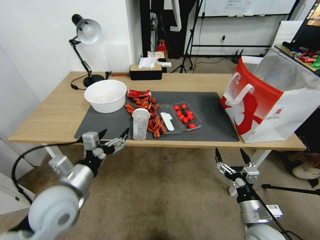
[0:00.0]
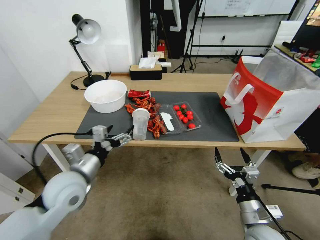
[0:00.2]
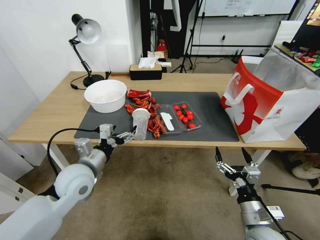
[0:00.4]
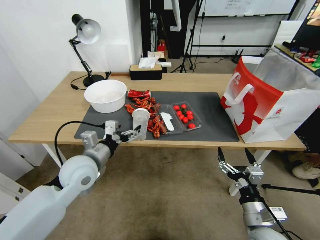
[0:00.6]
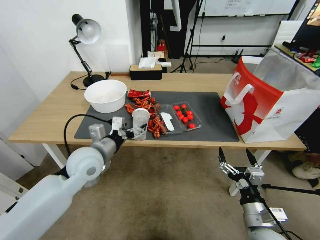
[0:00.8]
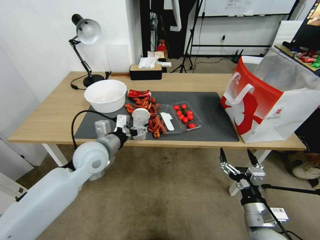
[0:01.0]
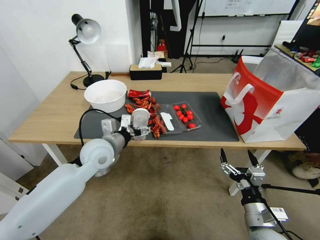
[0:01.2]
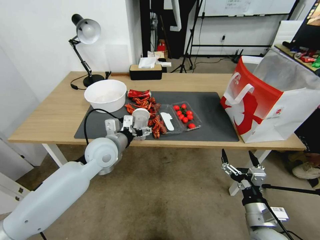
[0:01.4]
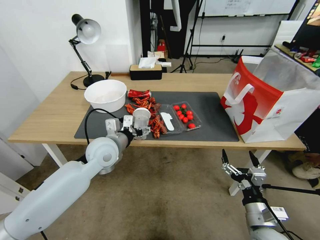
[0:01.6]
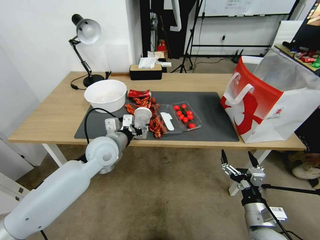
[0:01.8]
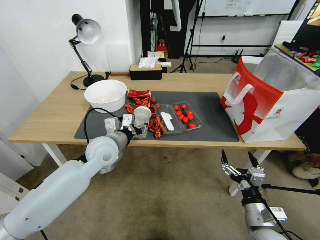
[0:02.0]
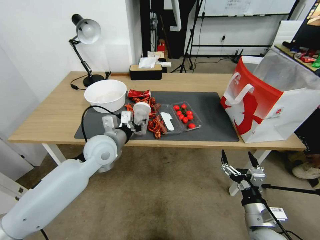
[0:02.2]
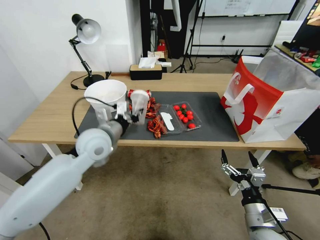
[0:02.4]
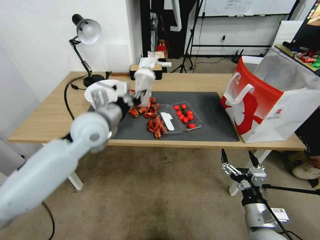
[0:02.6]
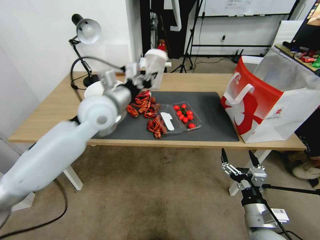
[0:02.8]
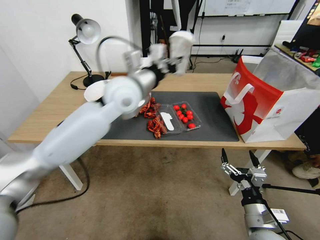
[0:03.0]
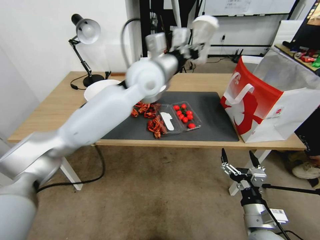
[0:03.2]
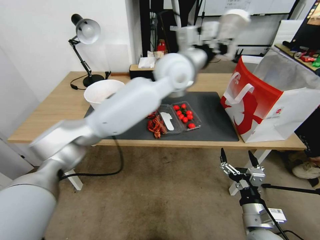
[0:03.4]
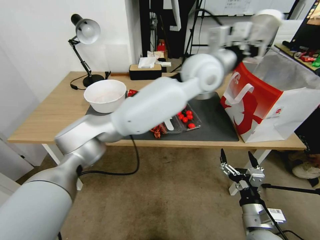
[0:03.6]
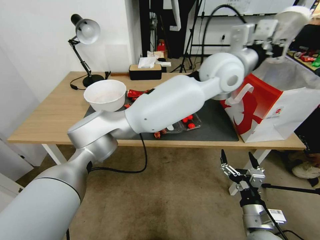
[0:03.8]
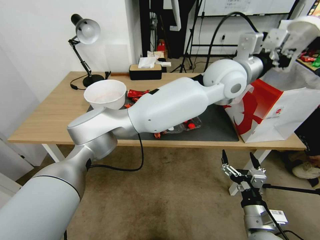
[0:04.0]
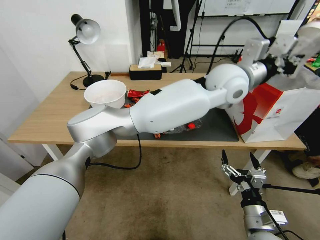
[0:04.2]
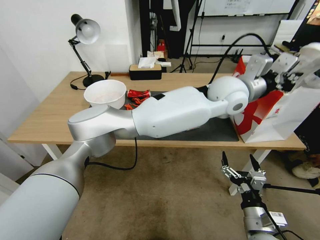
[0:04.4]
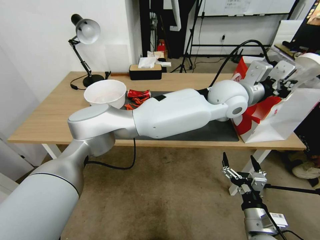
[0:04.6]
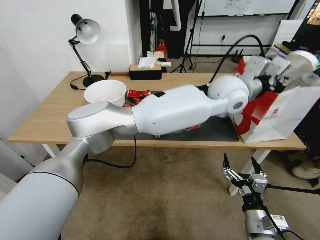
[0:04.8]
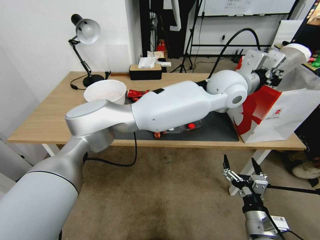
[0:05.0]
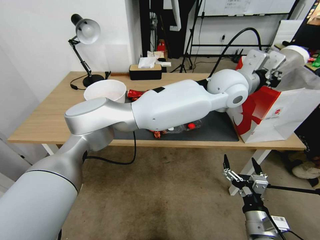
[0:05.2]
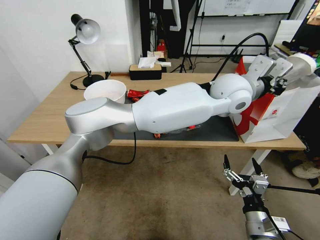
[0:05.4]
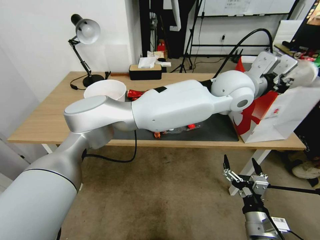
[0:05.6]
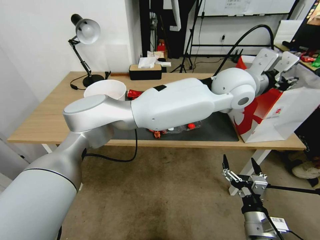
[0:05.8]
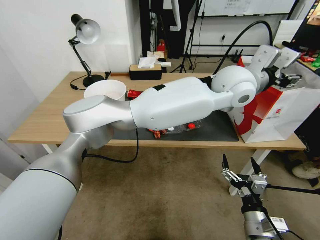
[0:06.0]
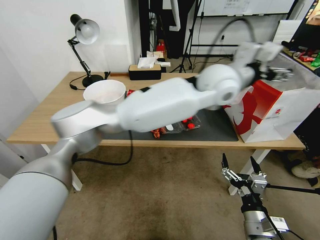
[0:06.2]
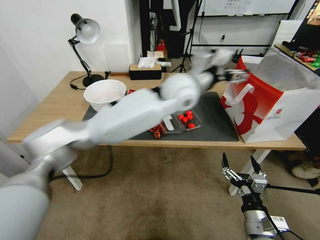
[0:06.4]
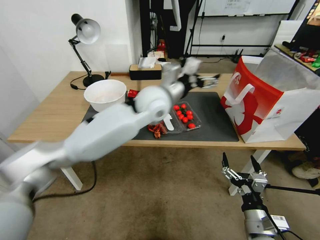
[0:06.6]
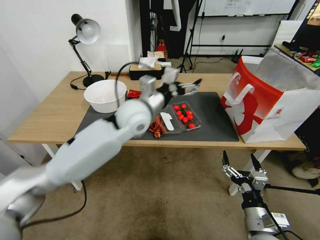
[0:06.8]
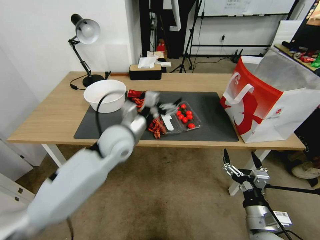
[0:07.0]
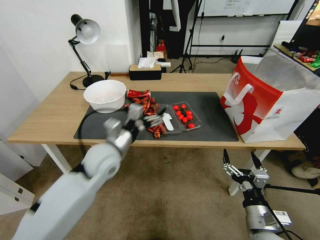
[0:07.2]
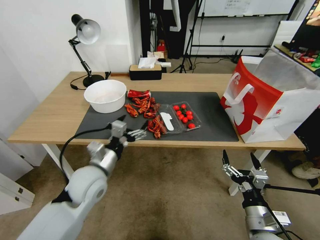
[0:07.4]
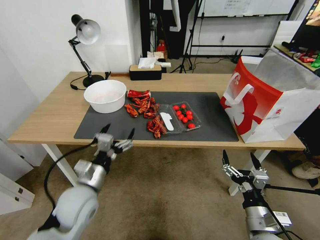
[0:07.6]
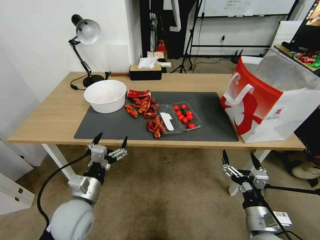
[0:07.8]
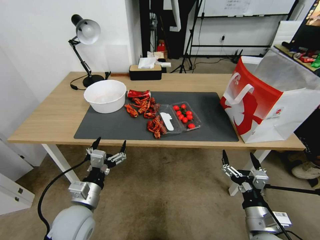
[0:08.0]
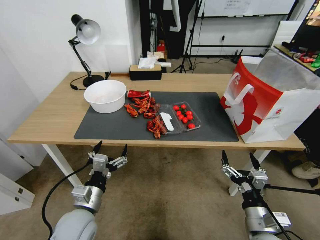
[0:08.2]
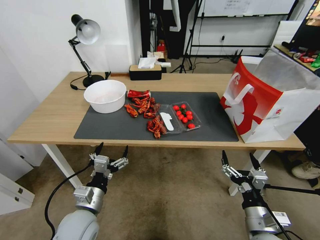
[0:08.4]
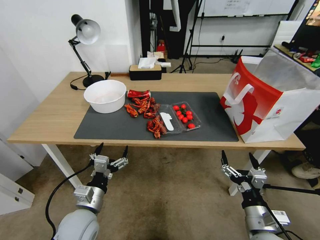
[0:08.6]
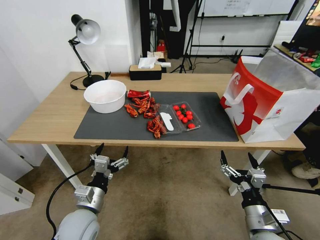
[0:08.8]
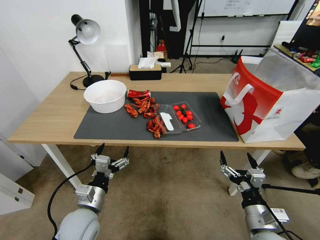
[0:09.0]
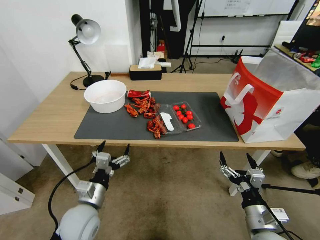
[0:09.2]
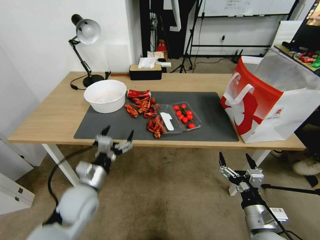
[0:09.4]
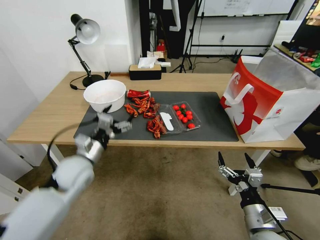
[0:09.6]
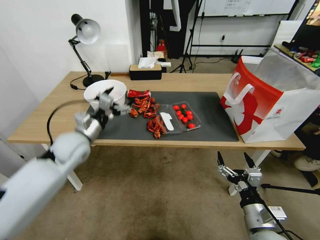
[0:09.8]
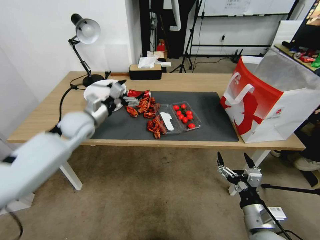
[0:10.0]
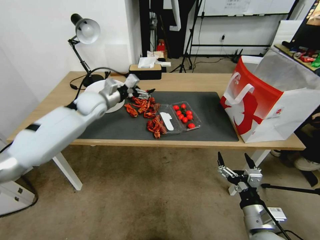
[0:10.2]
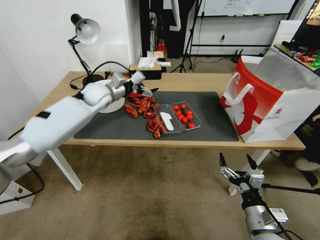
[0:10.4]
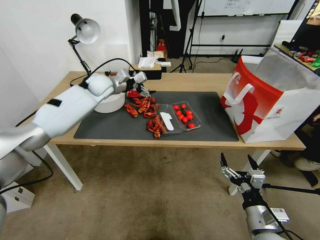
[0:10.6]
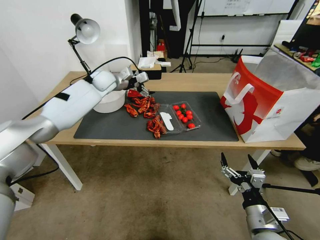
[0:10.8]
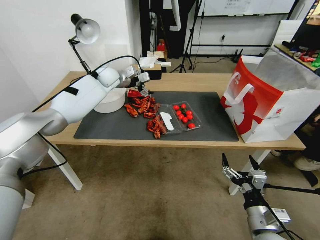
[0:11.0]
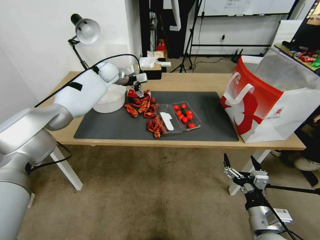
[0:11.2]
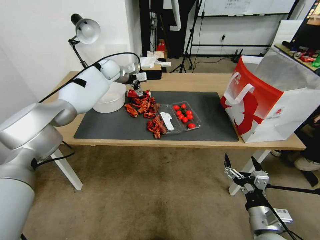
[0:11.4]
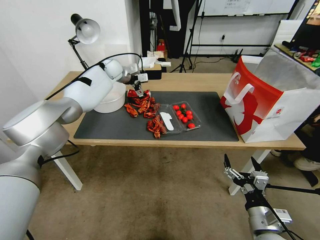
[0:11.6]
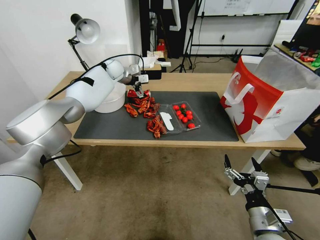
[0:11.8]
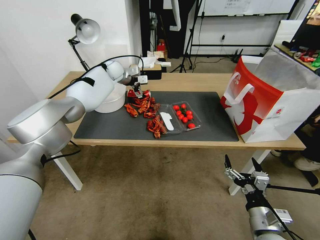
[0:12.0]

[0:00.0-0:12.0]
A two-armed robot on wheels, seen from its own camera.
0:00.0 to 0:01.6: The left gripper is displaced forward and to the right by approximately 15 cm.
0:01.6 to 0:03.0: The left gripper heads upward and to the right, covering some 20 cm, and closes its fingers.
0:03.0 to 0:04.4: The left gripper is displaced to the right by approximately 25 cm.
0:04.4 to 0:06.0: The left gripper opens.
0:06.0 to 0:07.6: The left gripper moves to the left, downward and backward, approximately 50 cm, and opens.
0:07.6 to 0:09.0: The left gripper is displaced downward and backward by approximately 10 cm.
0:09.0 to 0:10.4: The left gripper travels forward and upward by roughly 40 cm.
0:10.4 to 0:12.0: The left gripper shifts approximately 15 cm forward.

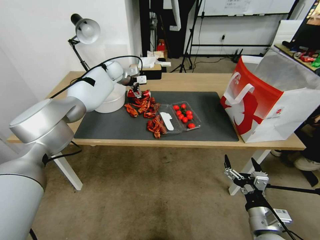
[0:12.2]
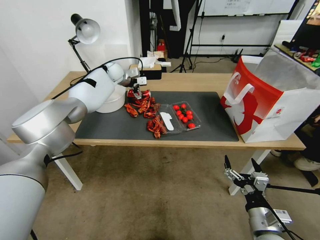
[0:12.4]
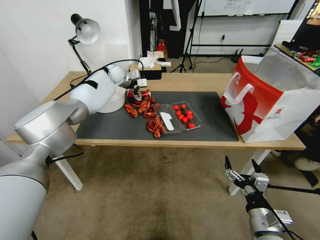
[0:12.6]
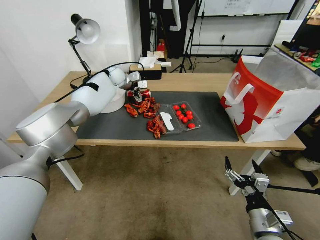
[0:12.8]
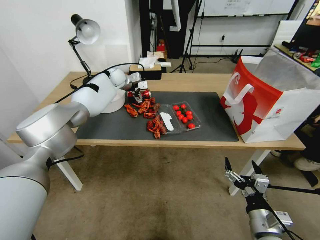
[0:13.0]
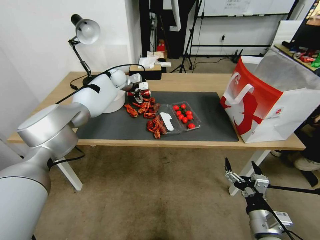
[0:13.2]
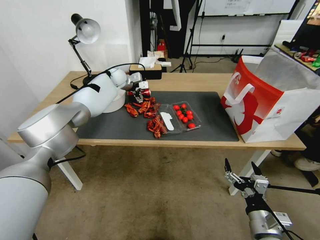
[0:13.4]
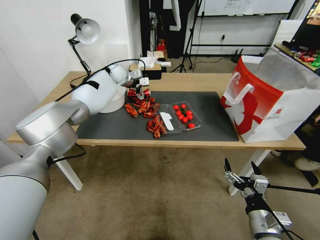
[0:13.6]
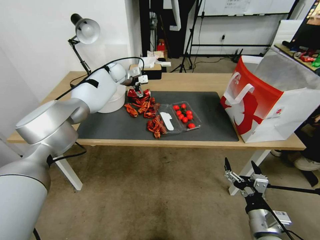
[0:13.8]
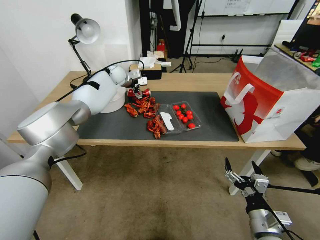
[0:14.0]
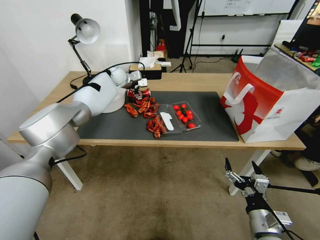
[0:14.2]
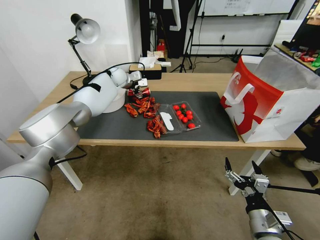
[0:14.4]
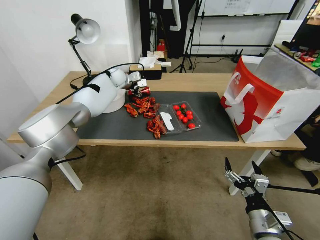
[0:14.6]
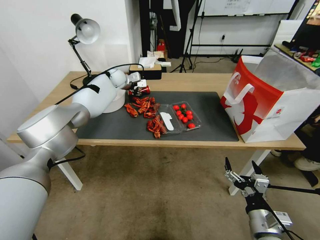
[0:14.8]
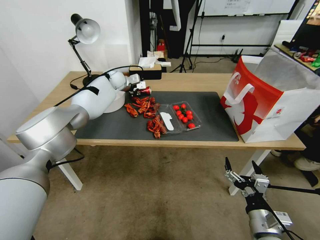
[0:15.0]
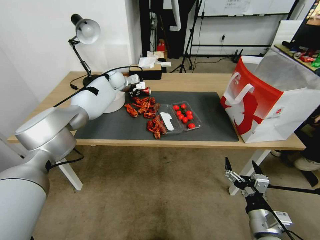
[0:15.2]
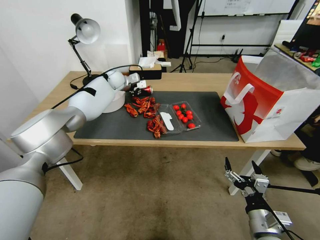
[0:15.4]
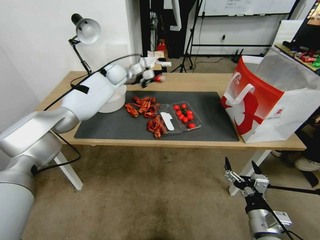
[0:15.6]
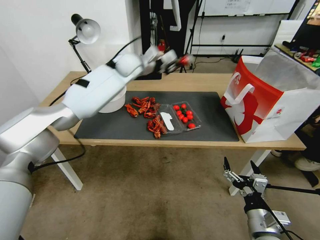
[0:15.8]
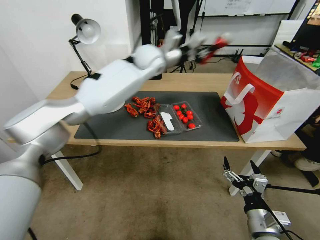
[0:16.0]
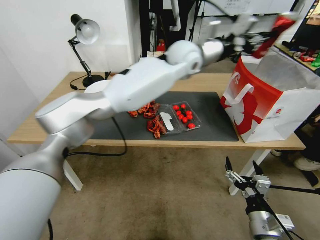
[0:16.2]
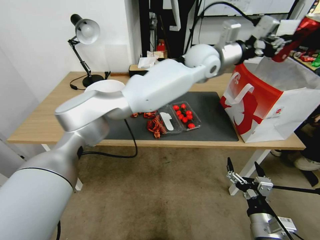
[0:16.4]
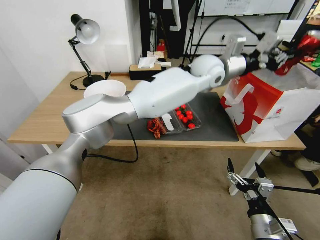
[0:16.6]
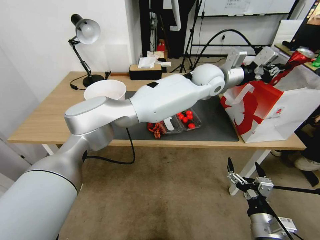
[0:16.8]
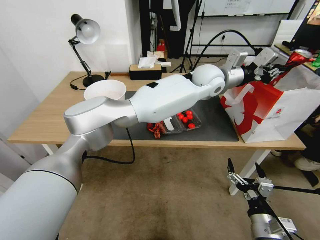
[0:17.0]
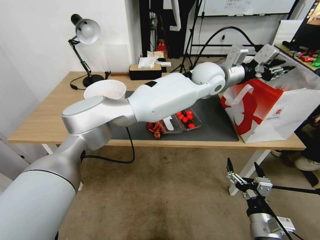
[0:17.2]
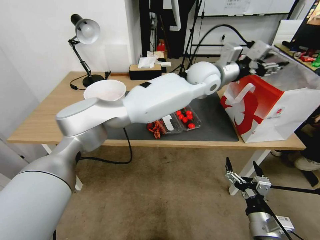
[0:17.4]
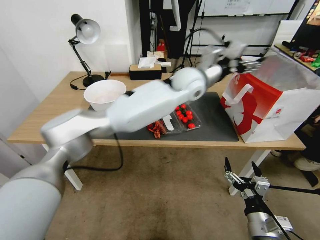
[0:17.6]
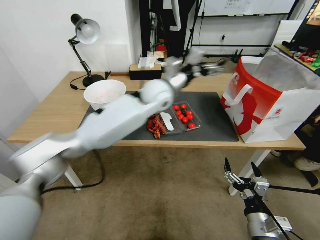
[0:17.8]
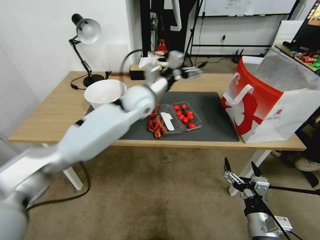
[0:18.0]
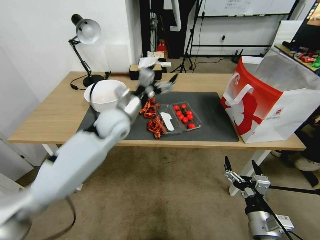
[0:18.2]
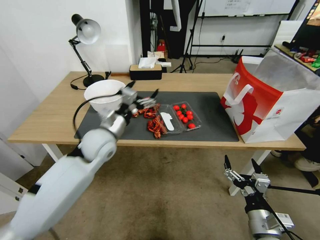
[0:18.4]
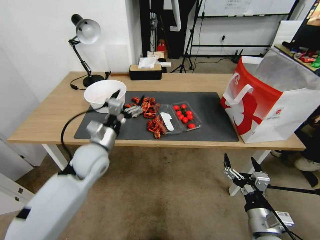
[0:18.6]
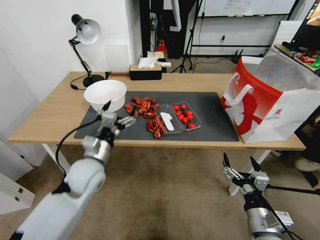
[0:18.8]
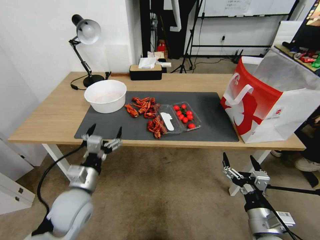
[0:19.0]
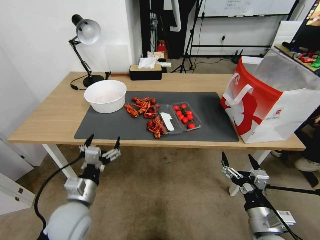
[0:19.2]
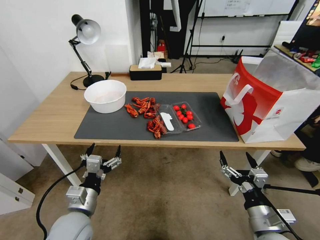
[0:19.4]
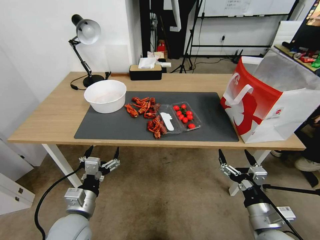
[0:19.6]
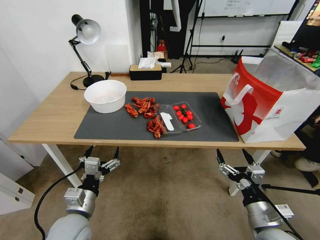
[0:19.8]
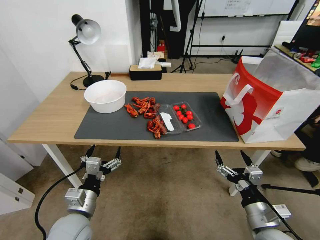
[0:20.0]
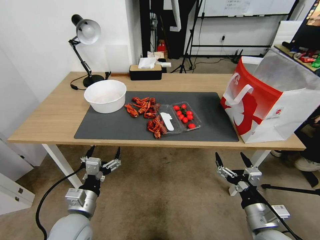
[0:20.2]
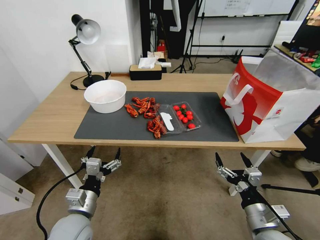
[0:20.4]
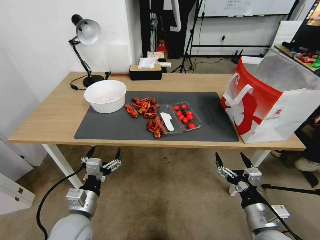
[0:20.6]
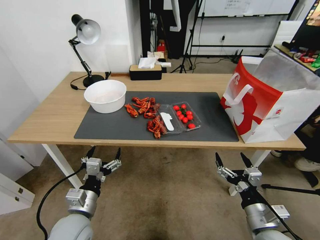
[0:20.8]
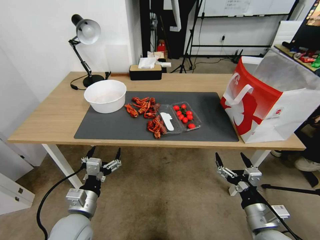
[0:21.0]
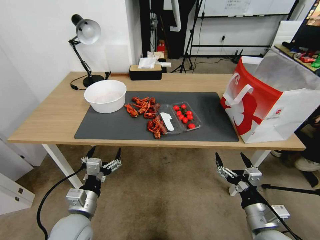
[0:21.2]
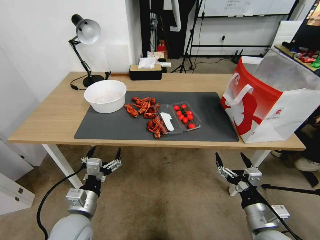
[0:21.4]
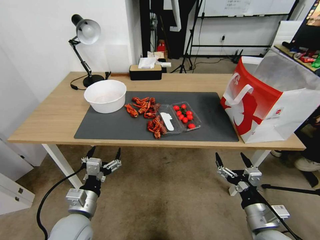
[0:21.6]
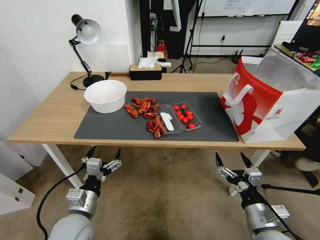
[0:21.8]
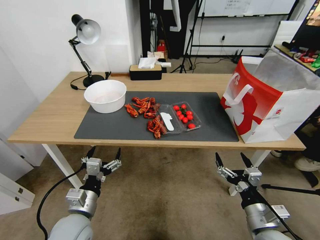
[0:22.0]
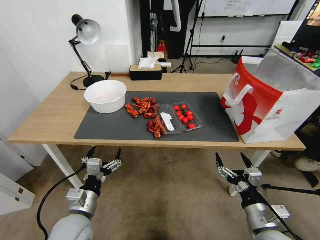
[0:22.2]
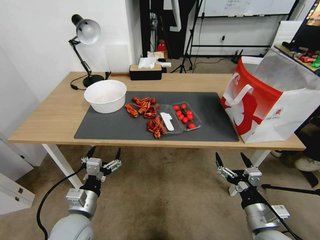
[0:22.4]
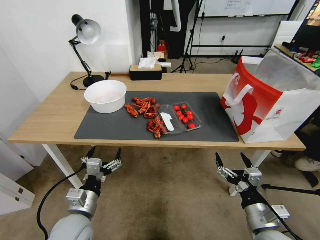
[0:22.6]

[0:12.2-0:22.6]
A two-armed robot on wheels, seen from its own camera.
0:12.2 to 0:13.6: The grippers move only a little.
0:13.6 to 0:15.2: The left gripper closes its fingers.
0:15.2 to 0:16.6: The left gripper travels to the right and backward by approximately 40 cm.
0:16.6 to 0:18.2: The left gripper travels to the left and downward by about 30 cm, and opens up.
0:18.2 to 0:19.6: The left gripper moves backward and downward, some 30 cm.
0:19.6 to 0:22.6: Both grippers stay about where they are.
